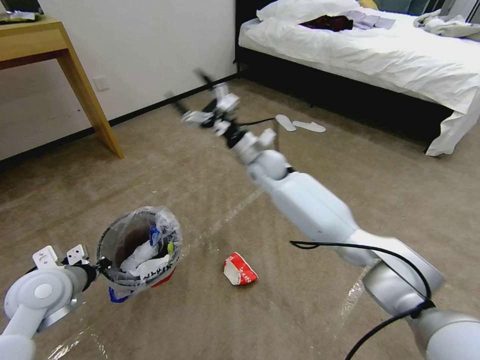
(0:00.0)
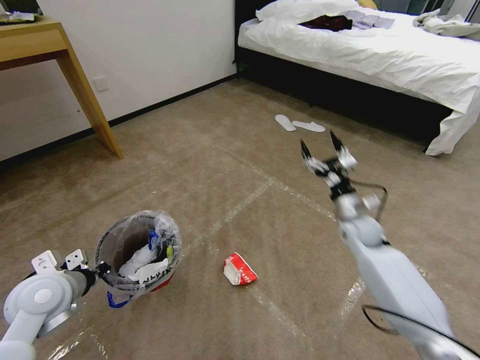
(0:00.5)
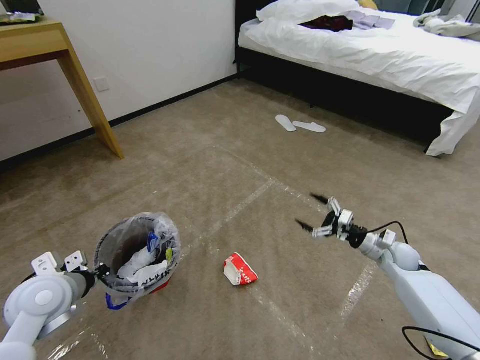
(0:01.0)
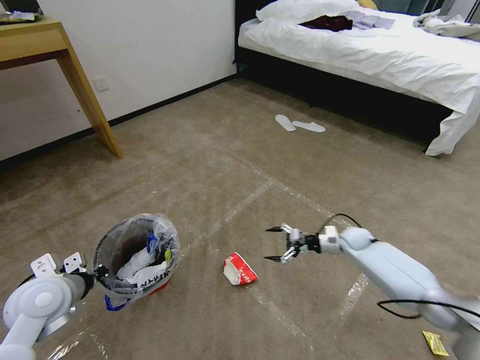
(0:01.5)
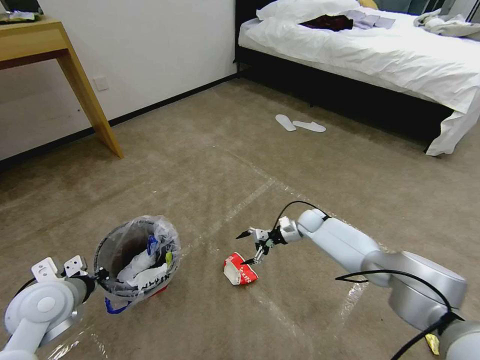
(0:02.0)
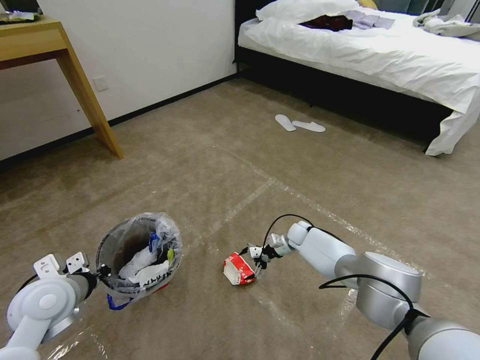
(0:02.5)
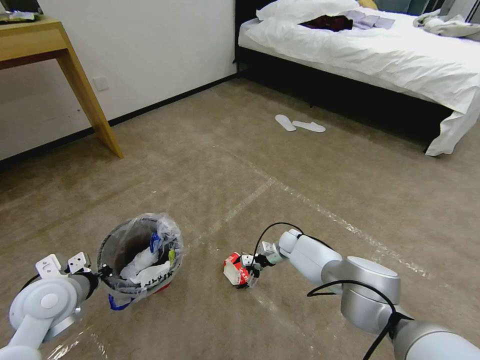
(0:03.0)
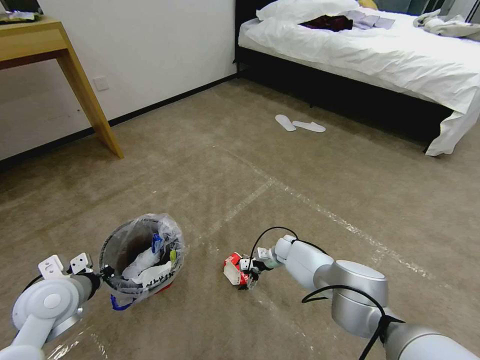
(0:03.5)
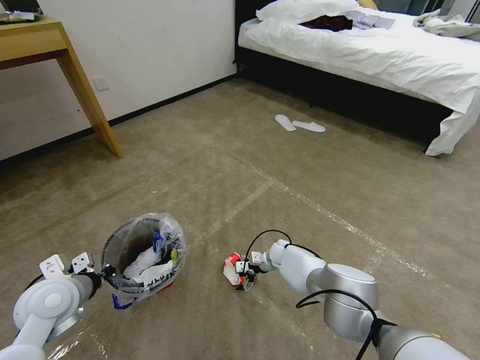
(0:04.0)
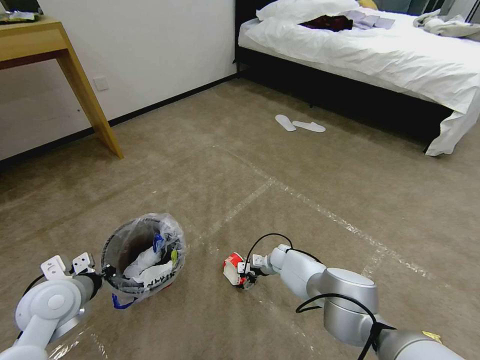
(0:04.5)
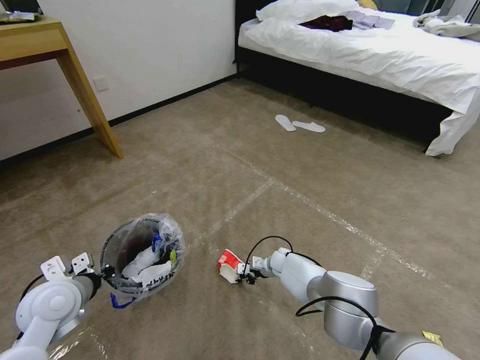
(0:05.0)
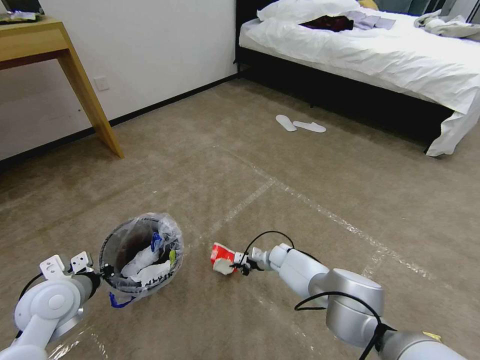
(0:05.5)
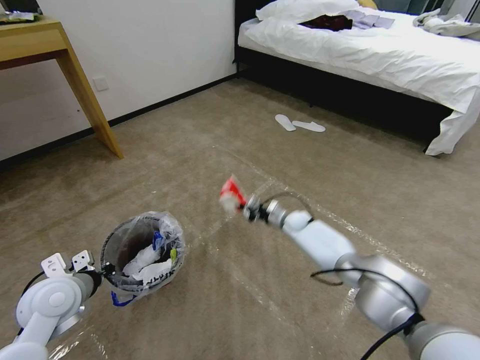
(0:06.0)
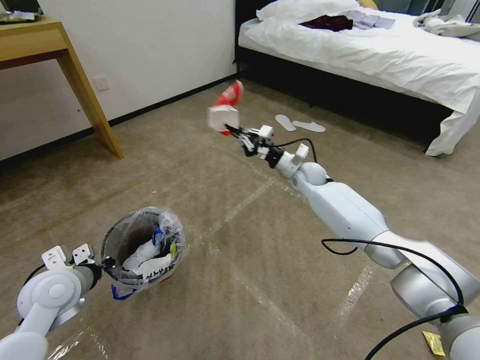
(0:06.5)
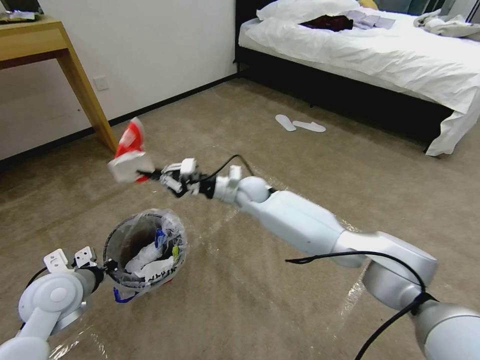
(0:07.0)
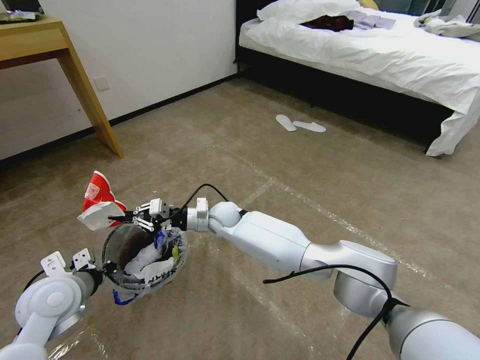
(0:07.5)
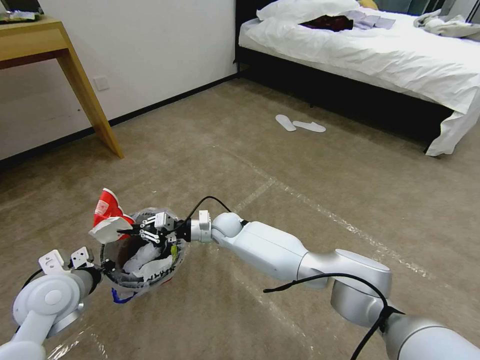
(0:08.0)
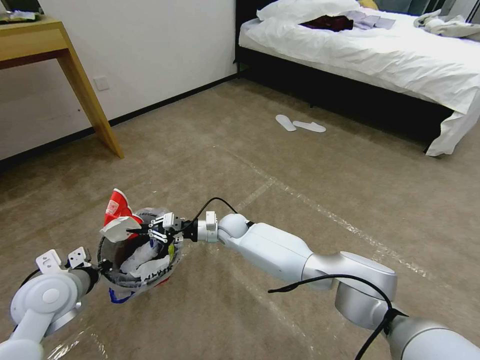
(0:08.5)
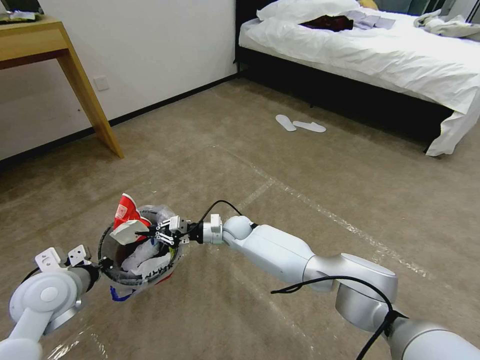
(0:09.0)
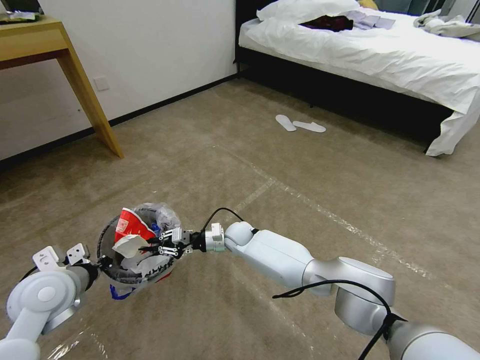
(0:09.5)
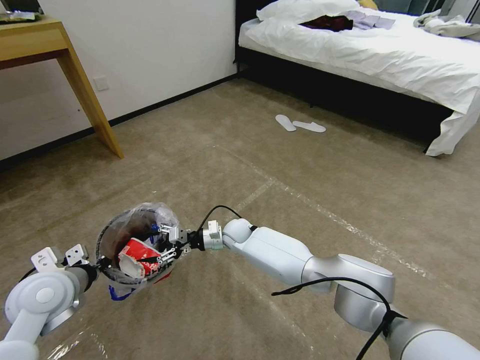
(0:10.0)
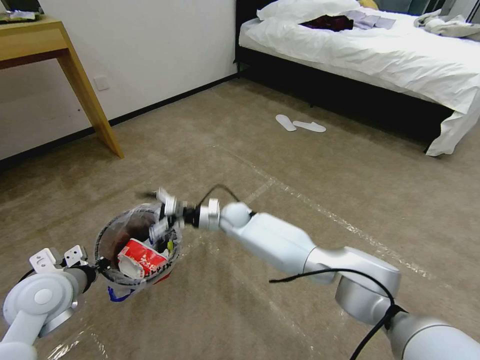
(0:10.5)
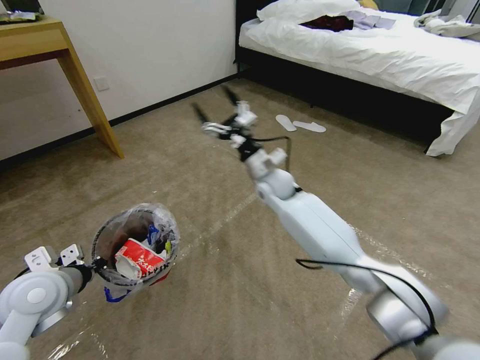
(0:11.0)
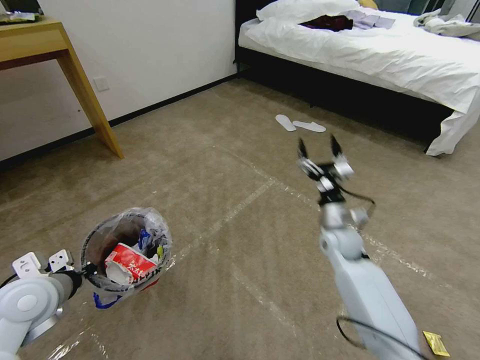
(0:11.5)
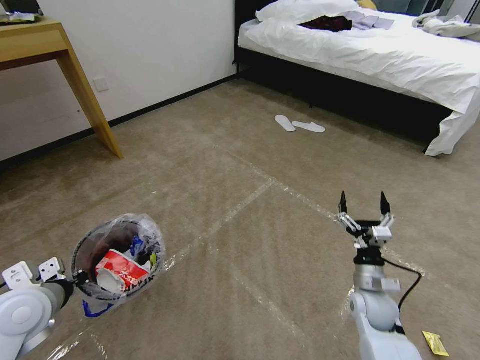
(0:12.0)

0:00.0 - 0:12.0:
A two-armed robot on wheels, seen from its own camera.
Task of the whole recording: Pick up the trash bin and place the garbage on the floor into it.
0:00.0 - 0:02.0: The right gripper travels downward and to the right by roughly 30 cm.
0:02.0 - 0:04.0: The right gripper heads downward, to the left and backward, covering some 15 cm.
0:04.0 - 0:06.0: The right gripper is displaced upward, forward and to the right by approximately 10 cm, and closes.
0:06.0 - 0:08.0: The right gripper shifts approximately 25 cm to the left.
0:08.0 - 0:10.0: The right gripper opens its fingers.
0:10.0 - 0:12.0: The right gripper is displaced to the right and backward by approximately 40 cm.
